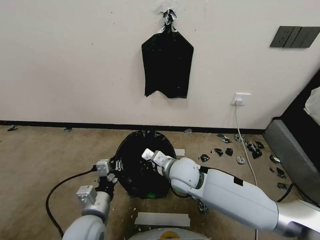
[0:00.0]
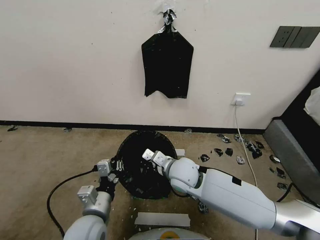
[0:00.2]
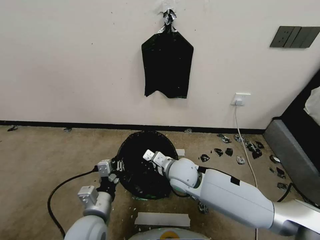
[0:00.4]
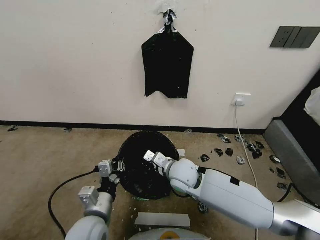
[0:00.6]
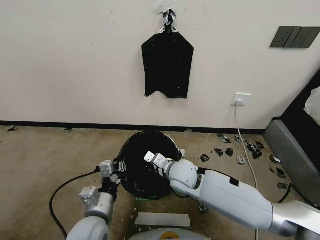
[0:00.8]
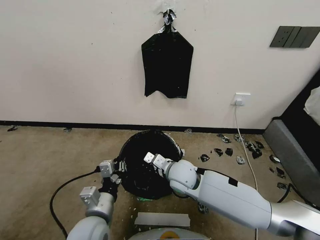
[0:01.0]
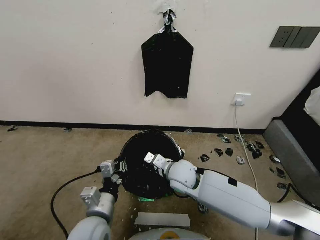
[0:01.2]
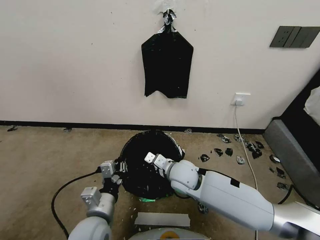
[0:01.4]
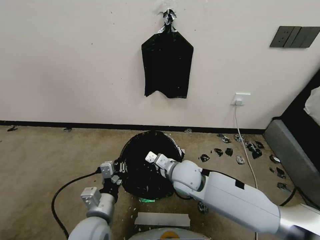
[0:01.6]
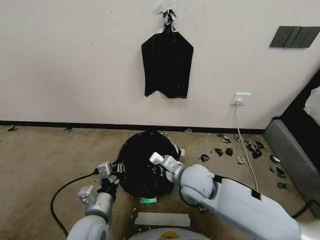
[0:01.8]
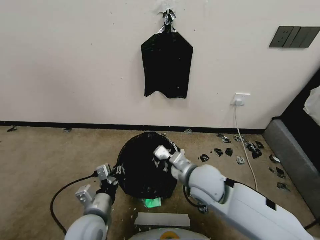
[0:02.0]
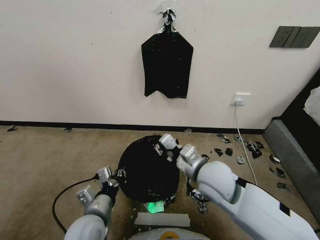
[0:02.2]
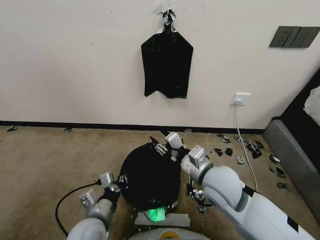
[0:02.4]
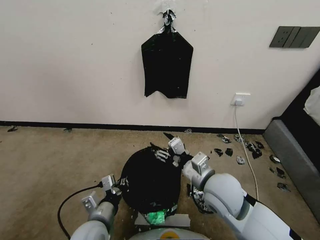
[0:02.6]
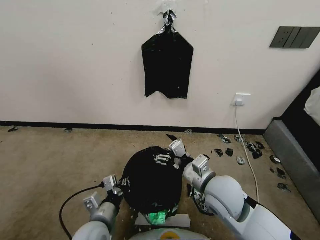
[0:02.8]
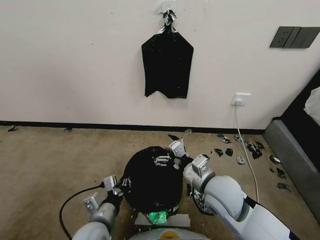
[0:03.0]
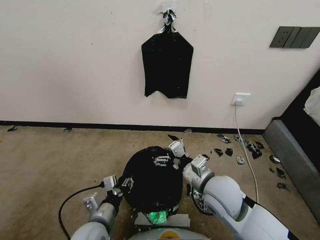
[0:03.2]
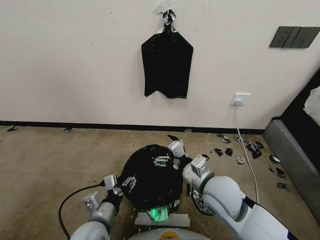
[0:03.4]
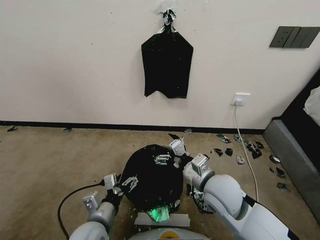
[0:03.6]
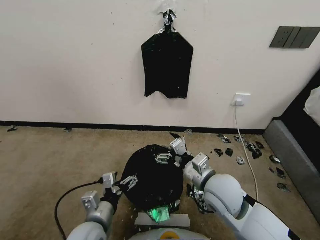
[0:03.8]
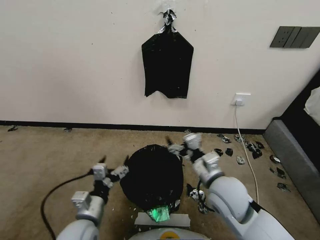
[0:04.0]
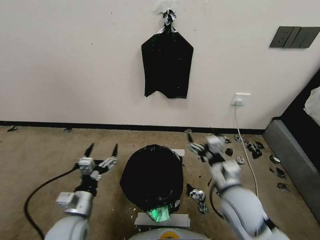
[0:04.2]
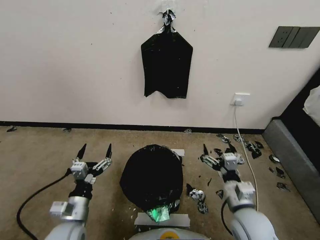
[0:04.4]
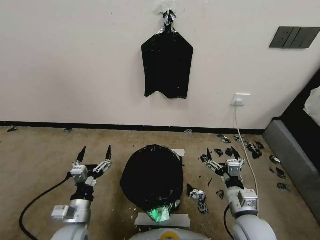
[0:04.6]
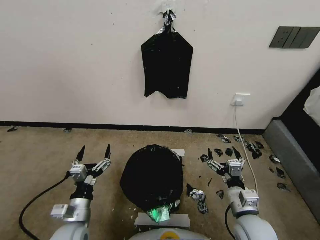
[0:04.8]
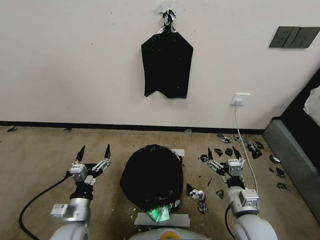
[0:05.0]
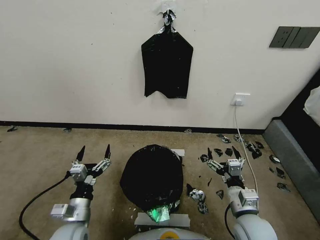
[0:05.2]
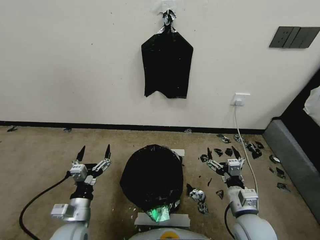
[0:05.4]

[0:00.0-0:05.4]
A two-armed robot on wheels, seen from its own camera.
Task of the whole recording: Place a trash bag onto the trash bin.
0:00.0 to 0:01.4: The grippers stay close to where they were, moving slightly.
0:01.4 to 0:02.8: The right gripper moves to the right, backward and upward, roughly 15 cm, and opens up.
0:02.8 to 0:04.0: The left gripper opens its fingers.
0:04.0 to 0:05.4: The left gripper shifts by some 5 cm, while the right gripper travels downward, to the right and backward by roughly 15 cm.

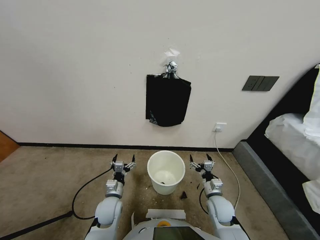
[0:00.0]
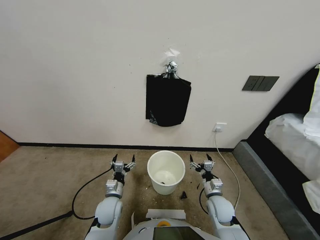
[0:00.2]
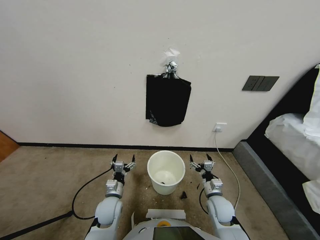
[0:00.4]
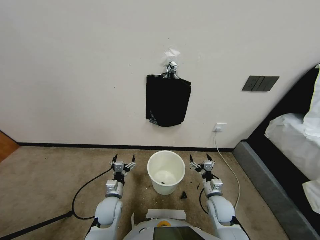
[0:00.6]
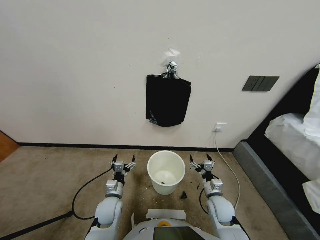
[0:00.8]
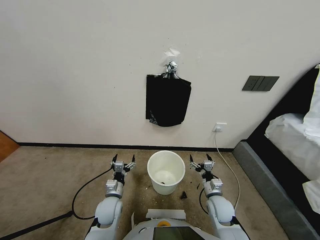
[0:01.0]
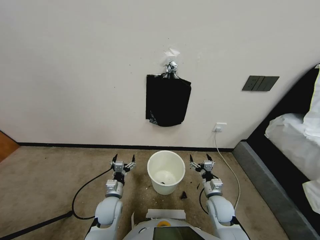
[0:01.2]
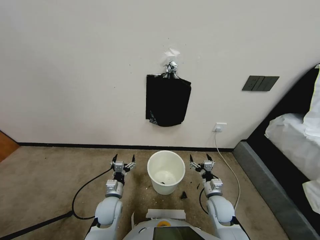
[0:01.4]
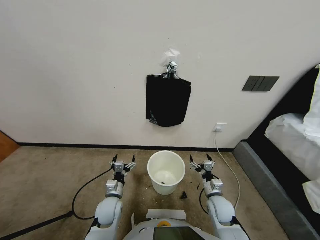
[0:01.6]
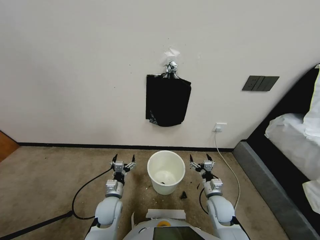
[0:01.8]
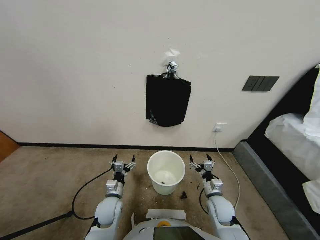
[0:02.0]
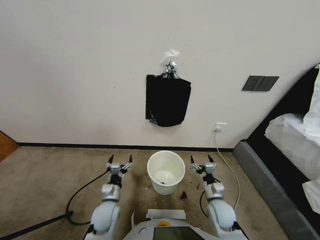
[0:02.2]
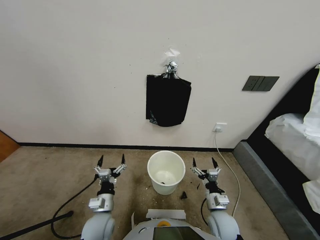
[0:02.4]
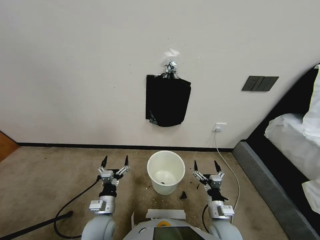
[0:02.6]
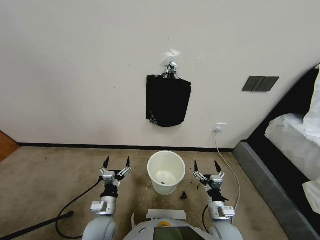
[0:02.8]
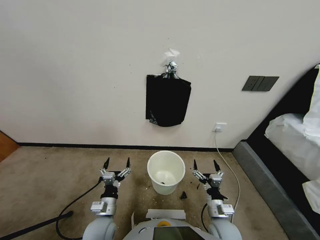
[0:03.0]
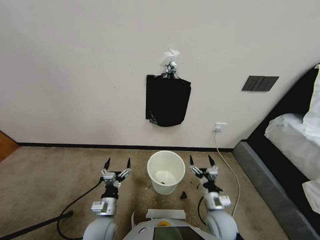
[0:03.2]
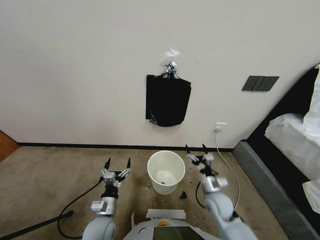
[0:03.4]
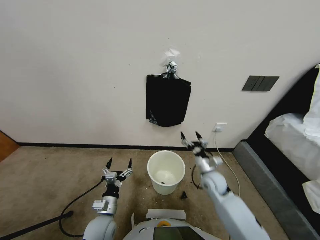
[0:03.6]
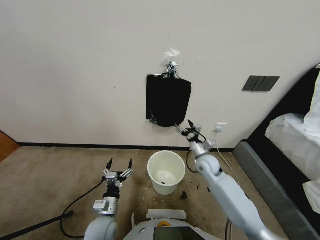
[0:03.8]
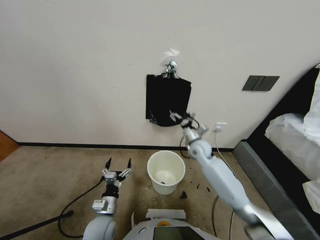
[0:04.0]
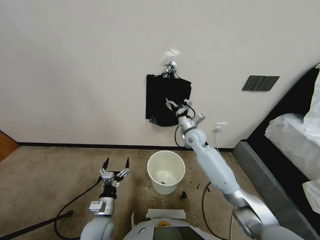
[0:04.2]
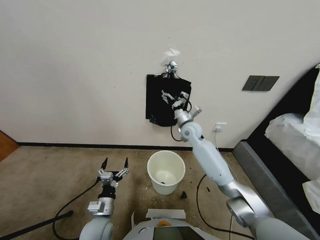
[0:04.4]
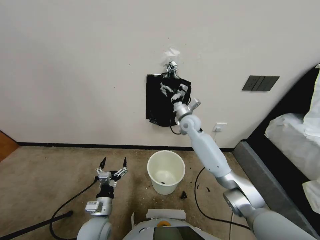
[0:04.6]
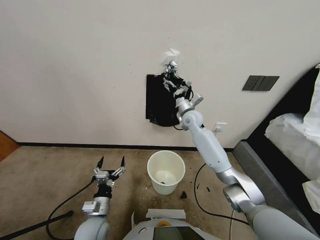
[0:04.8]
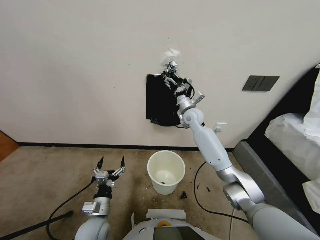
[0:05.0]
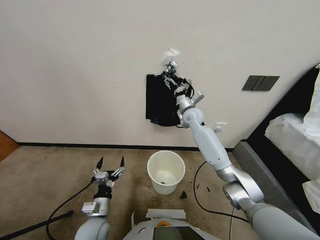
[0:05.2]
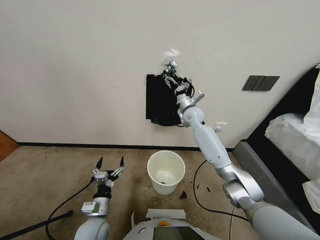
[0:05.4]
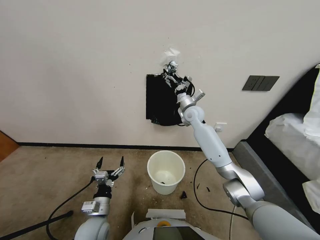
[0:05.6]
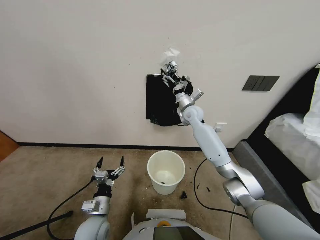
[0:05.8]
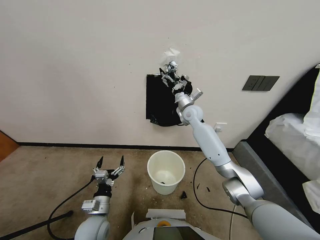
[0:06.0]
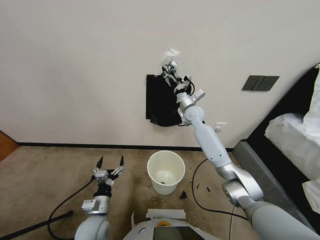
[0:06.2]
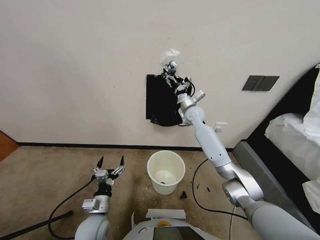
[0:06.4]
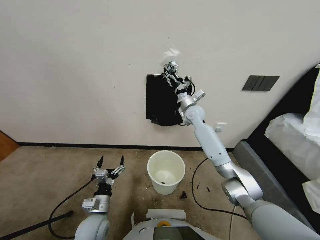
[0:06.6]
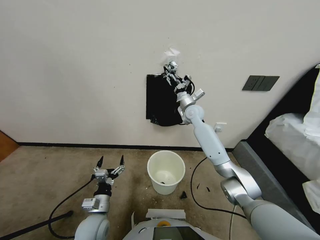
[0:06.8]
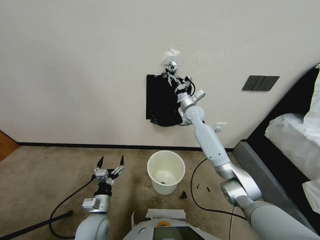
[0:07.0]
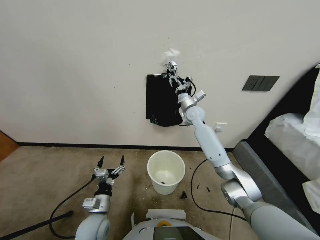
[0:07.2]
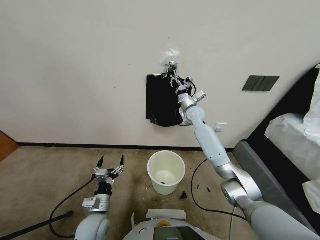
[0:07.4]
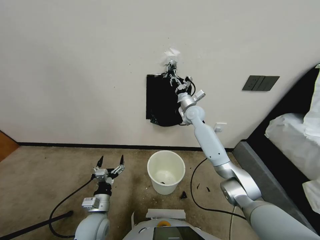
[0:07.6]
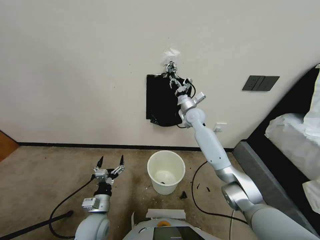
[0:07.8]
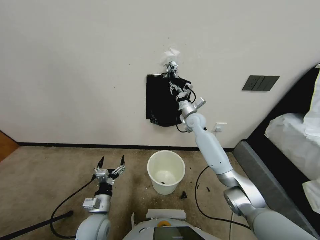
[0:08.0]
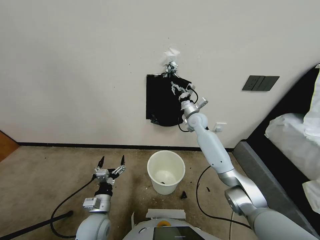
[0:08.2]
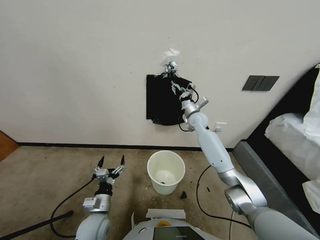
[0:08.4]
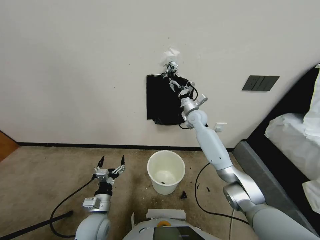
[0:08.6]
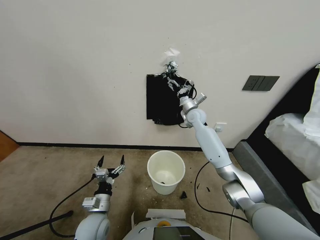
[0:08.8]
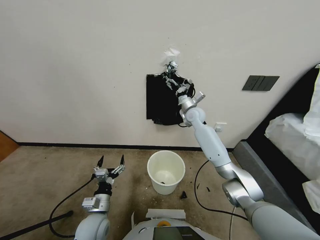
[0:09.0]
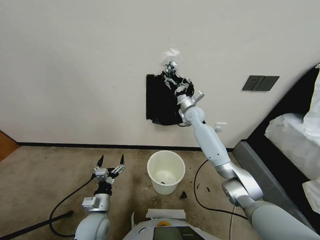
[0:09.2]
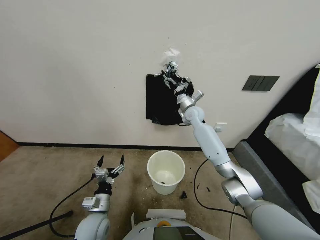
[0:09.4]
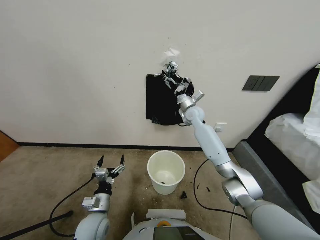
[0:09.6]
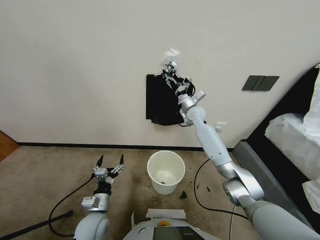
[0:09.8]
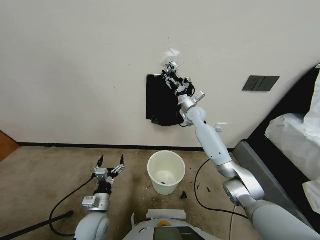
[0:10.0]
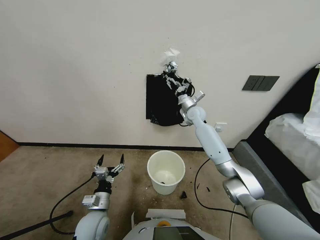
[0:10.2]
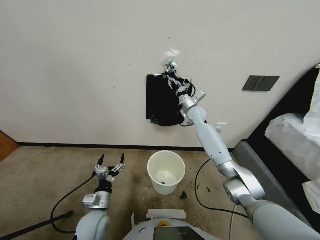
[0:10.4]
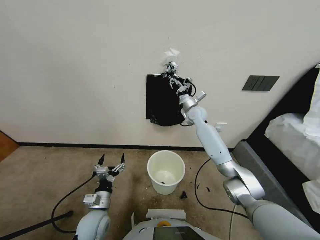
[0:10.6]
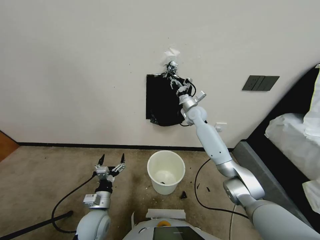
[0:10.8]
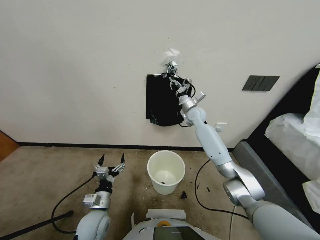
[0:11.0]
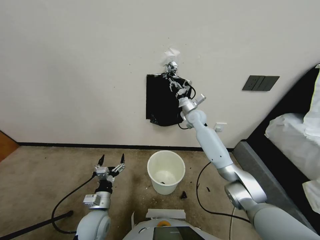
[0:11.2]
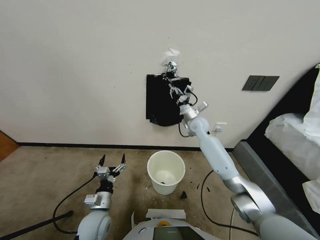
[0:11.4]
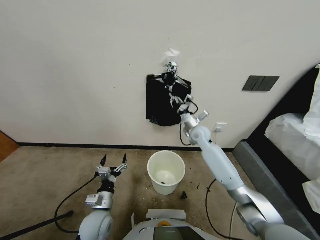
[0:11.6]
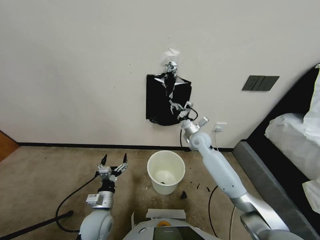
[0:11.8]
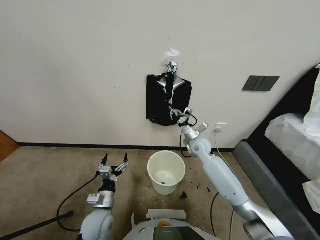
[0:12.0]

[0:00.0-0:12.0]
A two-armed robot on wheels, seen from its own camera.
Task of the whole recording: Place a trash bag onto the trash bin.
0:01.6 to 0:03.0: Both grippers move backward, about 5 cm.
0:03.0 to 0:04.4: The right gripper travels forward and upward by about 40 cm.
0:04.4 to 0:06.0: The right gripper ends up approximately 5 cm from where it was.
0:06.0 to 0:07.6: The right gripper closes up.
0:07.6 to 0:09.0: The right gripper opens.
0:09.0 to 0:10.4: The right gripper closes its fingers.
0:10.4 to 0:12.0: The right gripper travels backward and downward by about 20 cm.

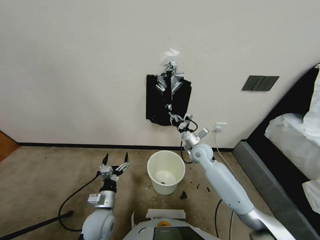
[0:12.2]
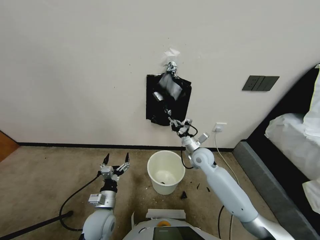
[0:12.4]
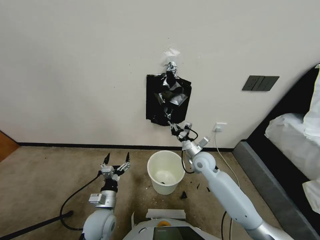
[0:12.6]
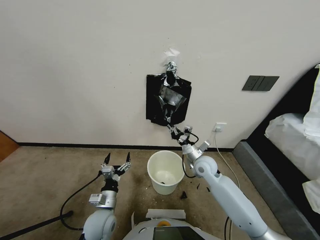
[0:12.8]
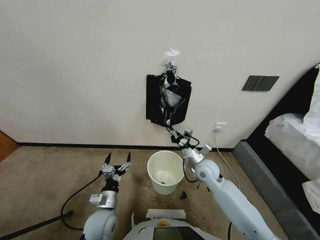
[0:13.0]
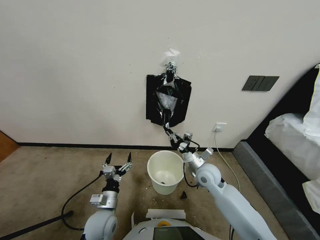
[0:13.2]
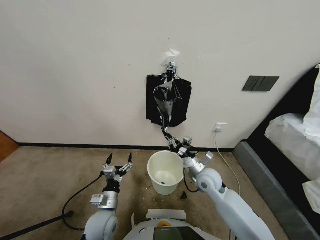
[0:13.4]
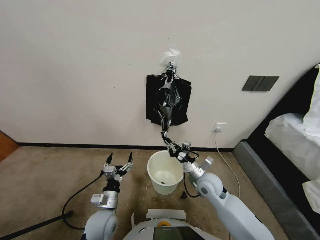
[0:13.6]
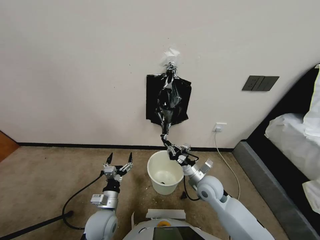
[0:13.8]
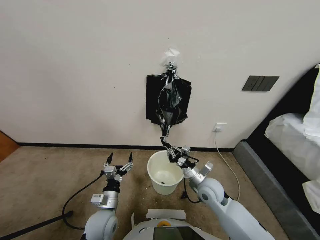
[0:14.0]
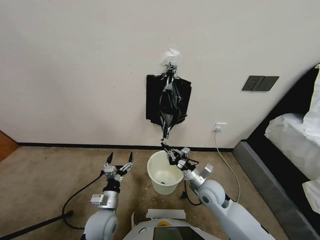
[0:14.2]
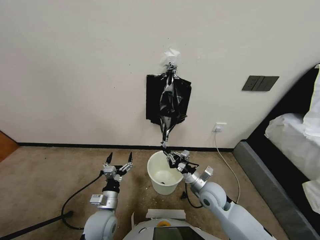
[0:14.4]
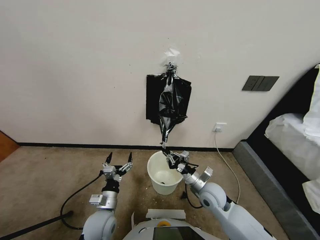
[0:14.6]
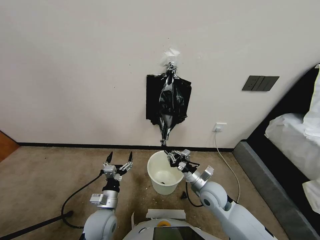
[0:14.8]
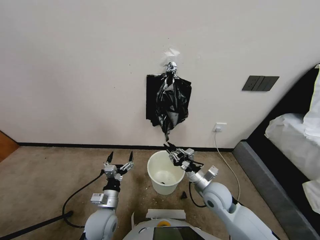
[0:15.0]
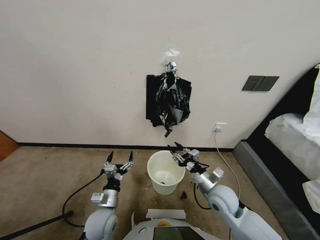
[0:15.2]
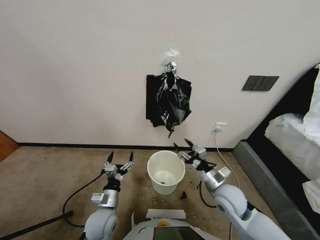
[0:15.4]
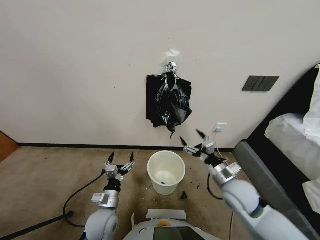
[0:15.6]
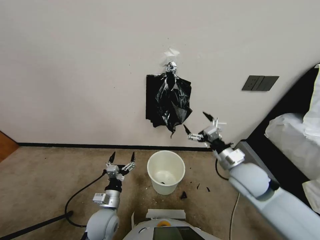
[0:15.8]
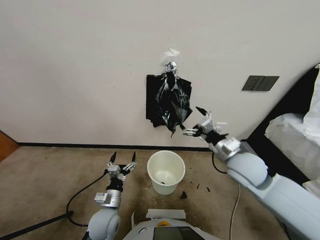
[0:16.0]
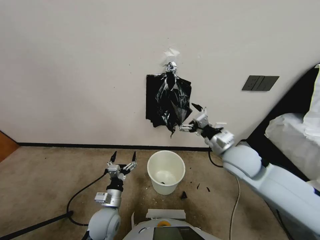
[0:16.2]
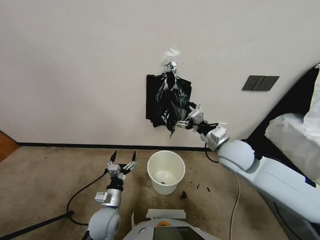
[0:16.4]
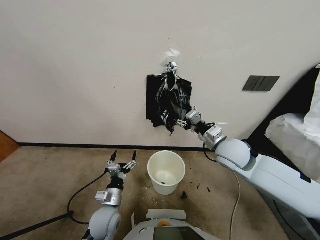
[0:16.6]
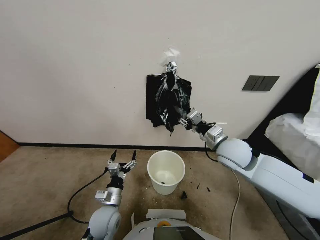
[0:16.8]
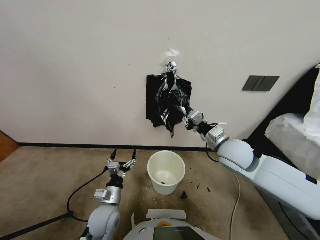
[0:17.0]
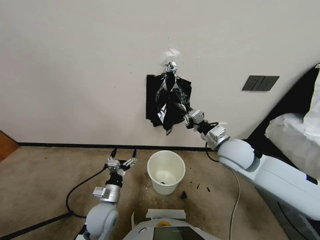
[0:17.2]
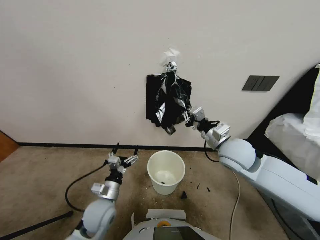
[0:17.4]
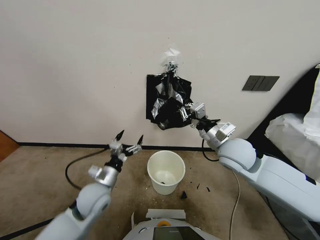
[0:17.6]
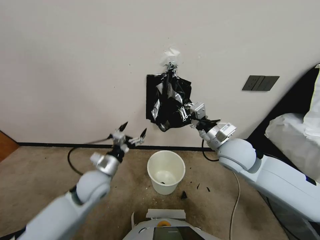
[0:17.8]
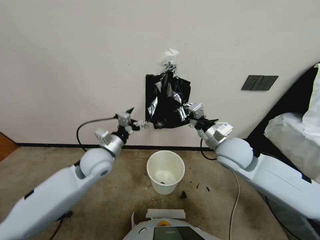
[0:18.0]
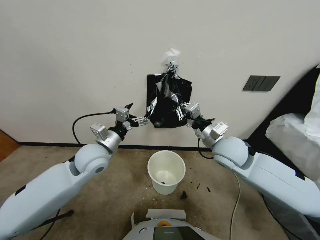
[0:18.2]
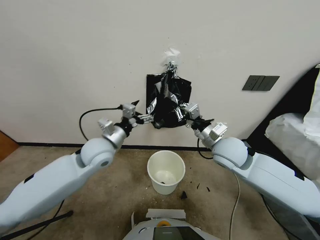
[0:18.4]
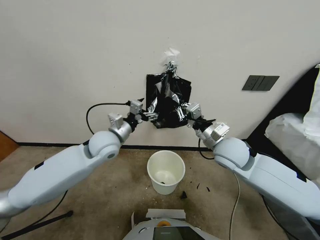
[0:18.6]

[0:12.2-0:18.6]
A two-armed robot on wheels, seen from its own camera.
Task of the whole recording: Place a trash bag onto the trash bin.
0:12.2 to 0:13.8: The right gripper shifts approximately 15 cm backward.
0:13.8 to 0:15.4: The right gripper shifts about 10 cm upward and to the right, and opens up.
0:15.4 to 0:17.0: The right gripper heads upward and forward, covering approximately 15 cm, and closes its fingers.
0:17.0 to 0:18.6: The left gripper travels upward and forward by roughly 30 cm.
